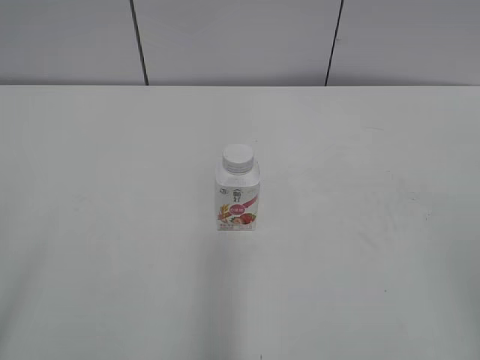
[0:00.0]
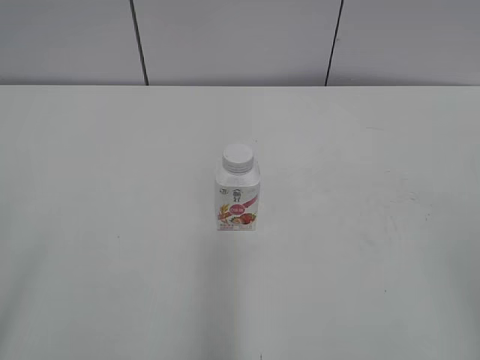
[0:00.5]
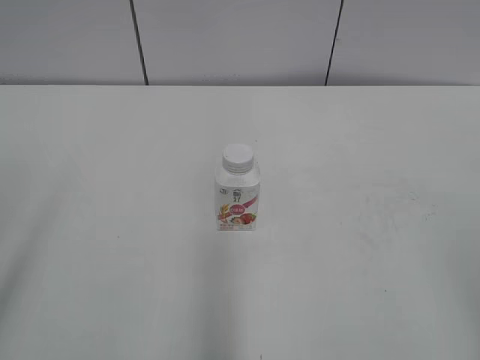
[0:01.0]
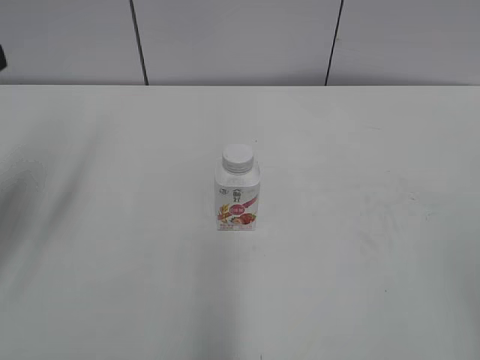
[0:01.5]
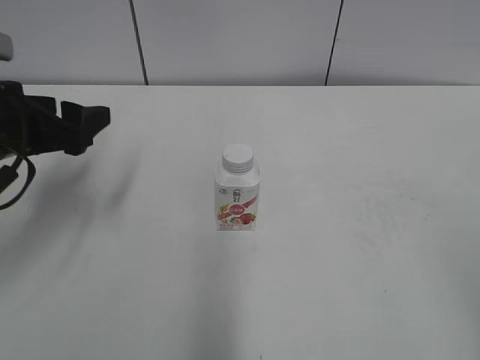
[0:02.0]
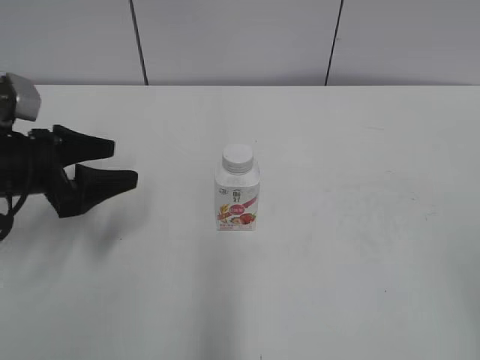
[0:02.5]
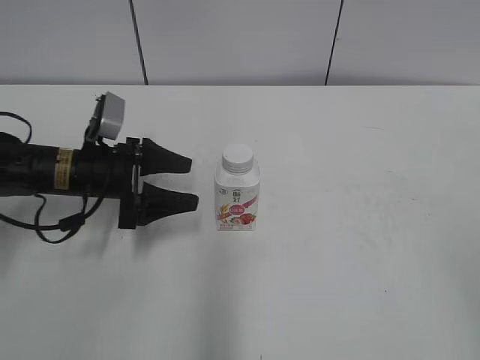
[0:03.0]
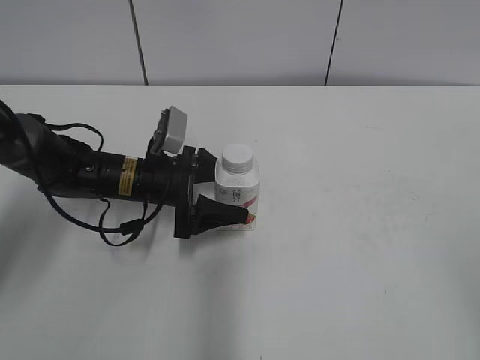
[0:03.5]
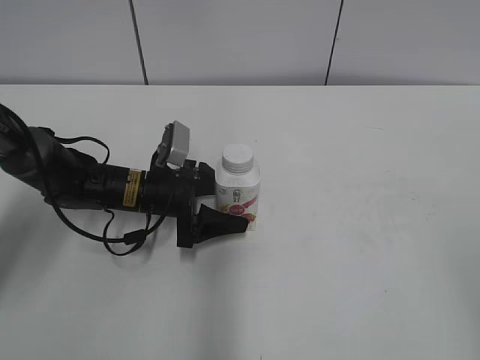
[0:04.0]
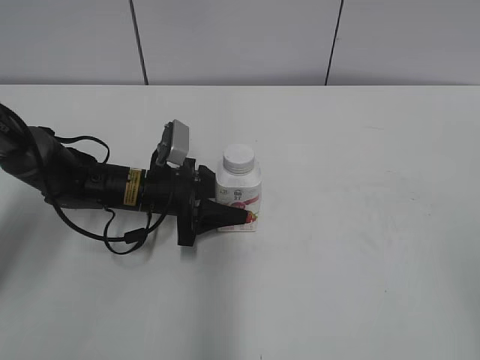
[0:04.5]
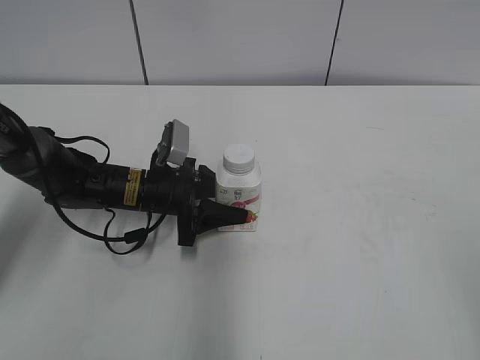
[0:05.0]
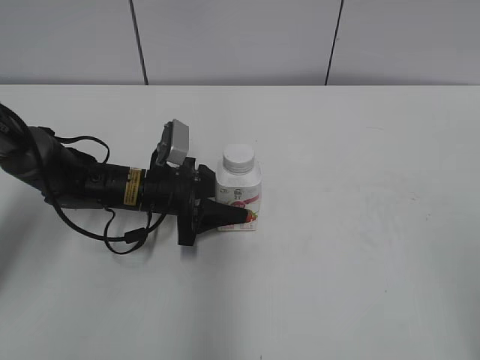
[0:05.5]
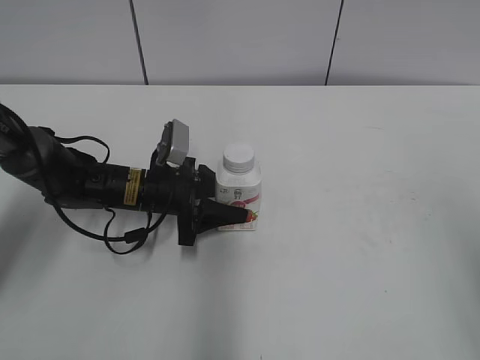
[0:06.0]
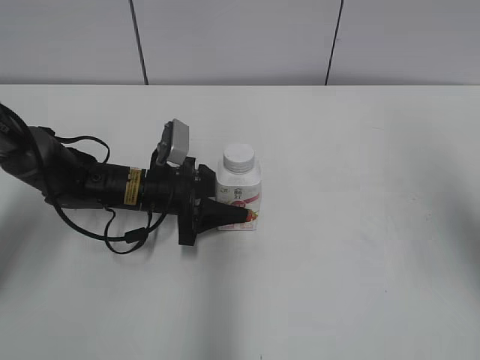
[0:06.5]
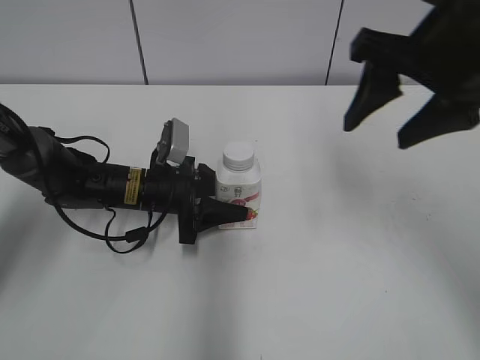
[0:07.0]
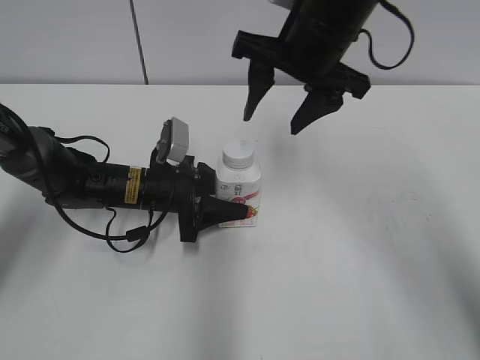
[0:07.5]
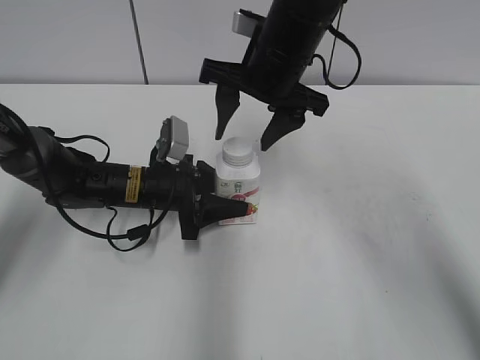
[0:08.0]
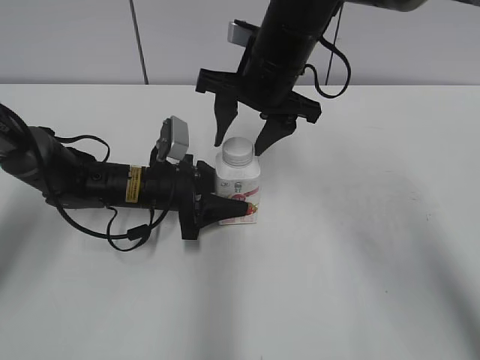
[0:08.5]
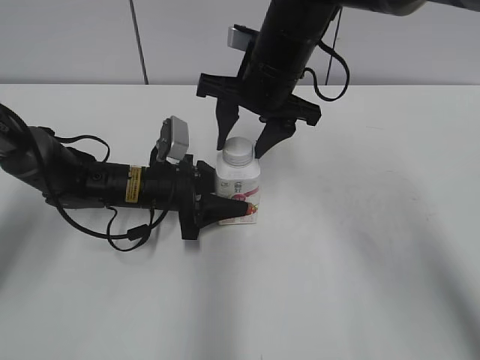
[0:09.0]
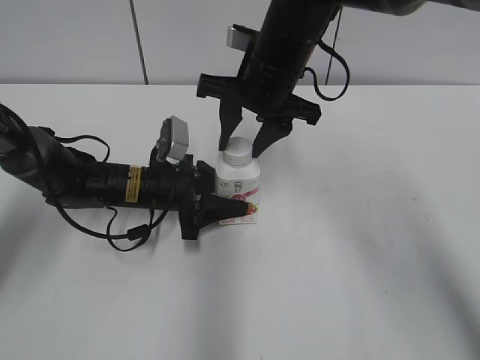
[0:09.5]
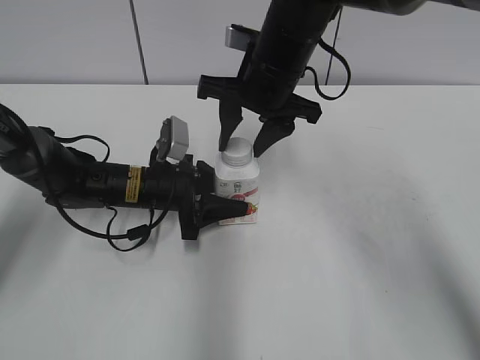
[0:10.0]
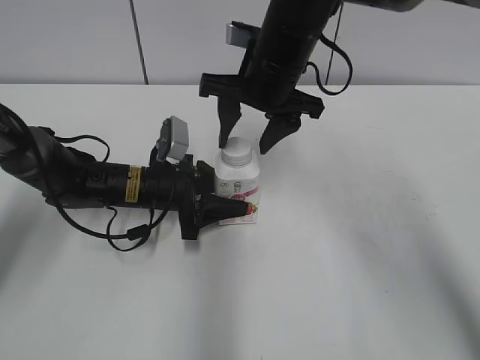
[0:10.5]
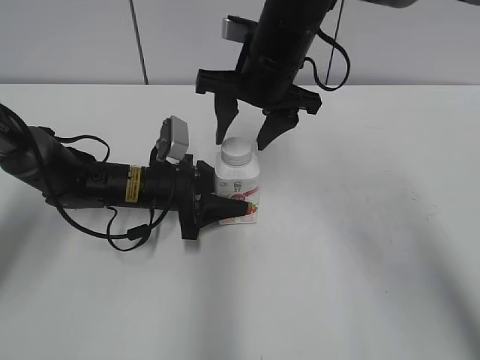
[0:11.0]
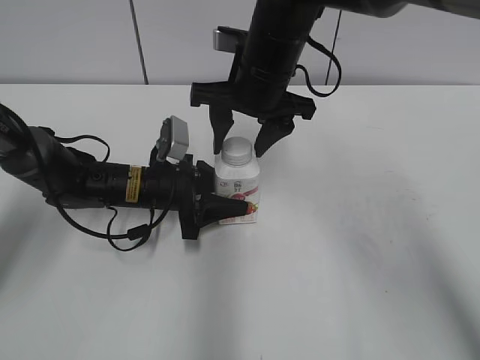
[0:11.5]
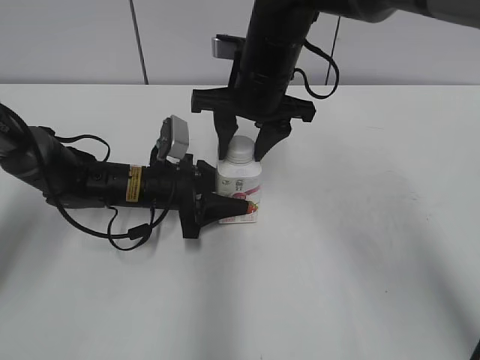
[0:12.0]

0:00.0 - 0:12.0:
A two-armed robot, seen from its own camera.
Step, 0:00.0 - 0:07.0: Grasp the bottle and move it to the center of the table with the left gripper.
0:02.0 - 0:04.0: The left gripper moves downward, to the right and forward, approximately 20 cm.
0:04.0 - 0:06.0: The left gripper closes up, while the right gripper goes about 5 cm forward.
0:06.0 - 0:08.0: The right gripper shifts some 40 cm forward and to the left.
0:08.0 - 0:10.0: The right gripper closes.
0:10.0 - 0:12.0: The right gripper opens, then closes once more.

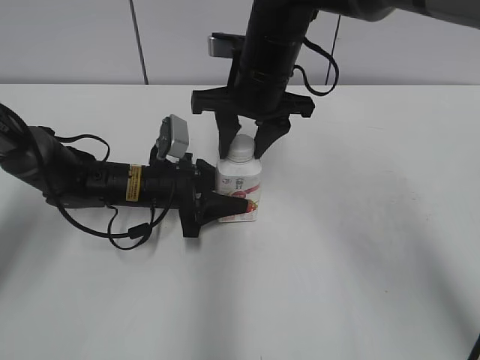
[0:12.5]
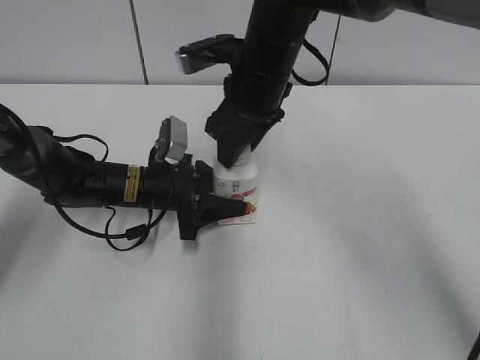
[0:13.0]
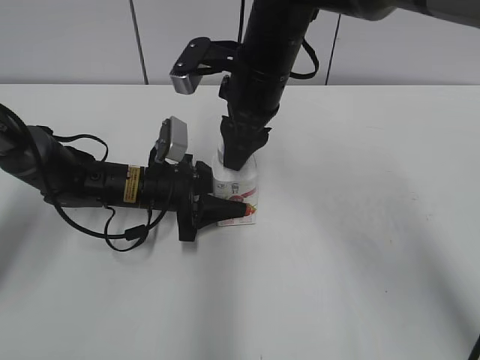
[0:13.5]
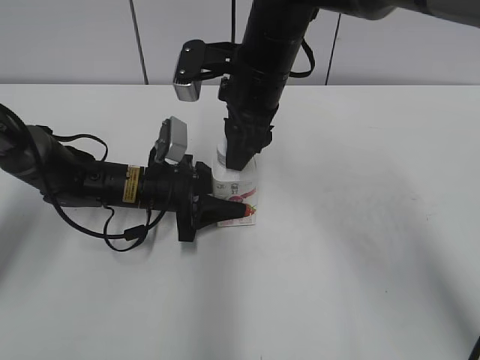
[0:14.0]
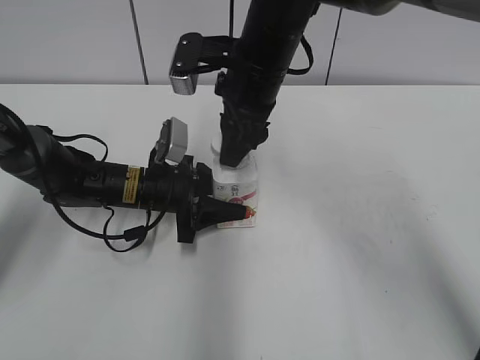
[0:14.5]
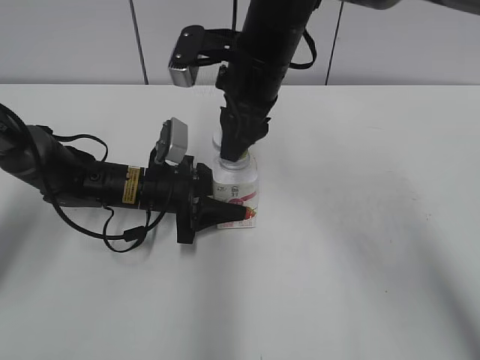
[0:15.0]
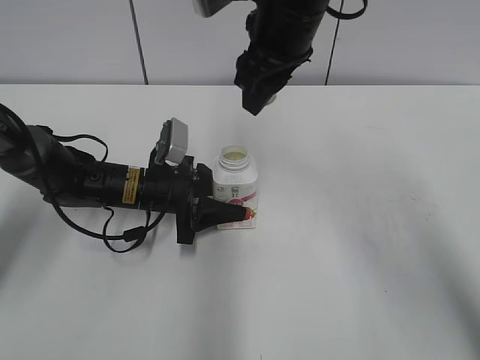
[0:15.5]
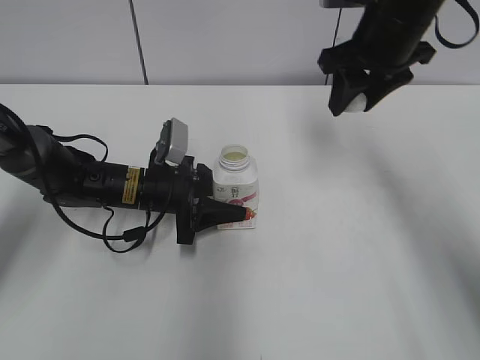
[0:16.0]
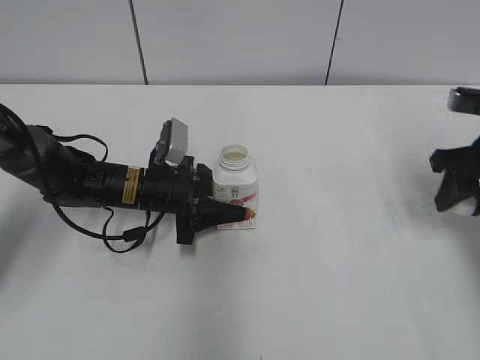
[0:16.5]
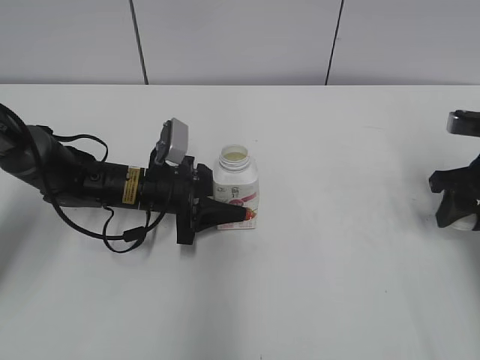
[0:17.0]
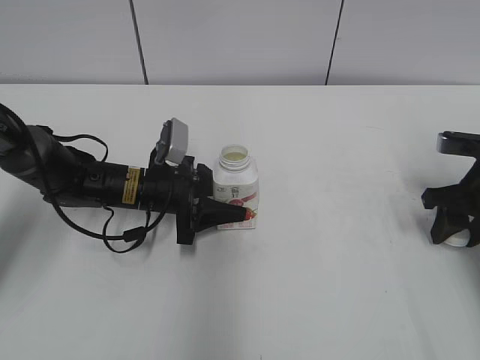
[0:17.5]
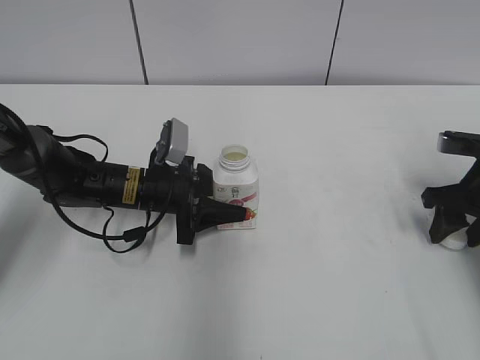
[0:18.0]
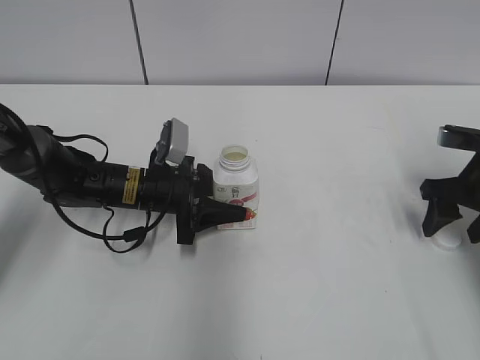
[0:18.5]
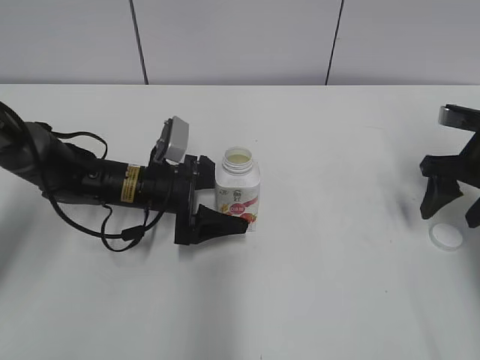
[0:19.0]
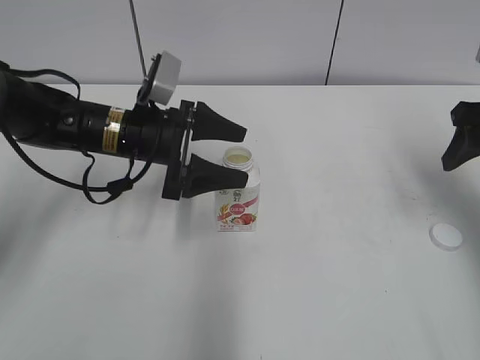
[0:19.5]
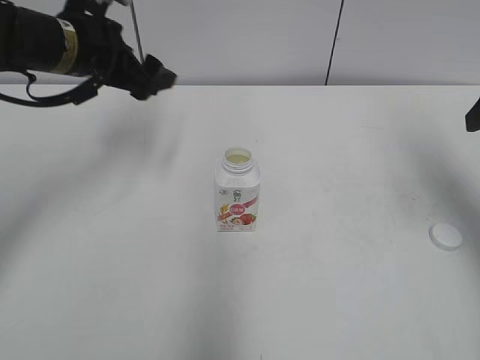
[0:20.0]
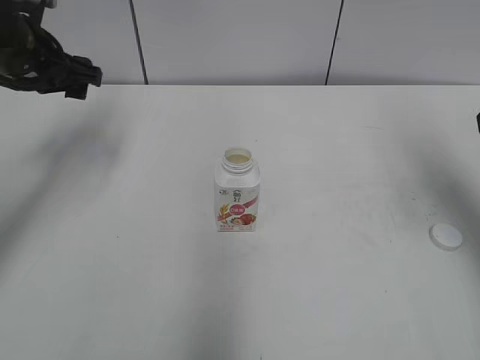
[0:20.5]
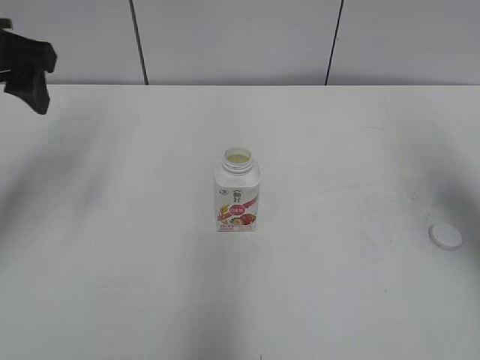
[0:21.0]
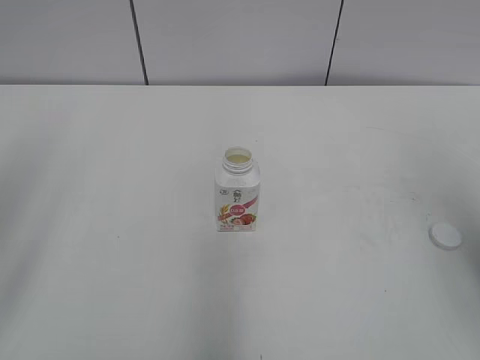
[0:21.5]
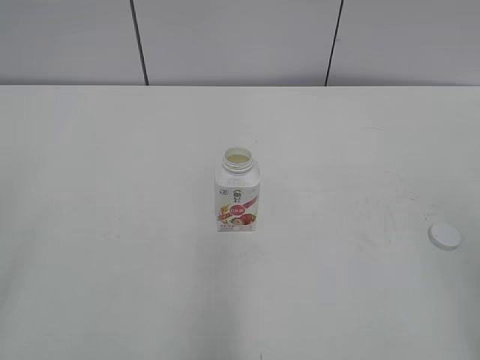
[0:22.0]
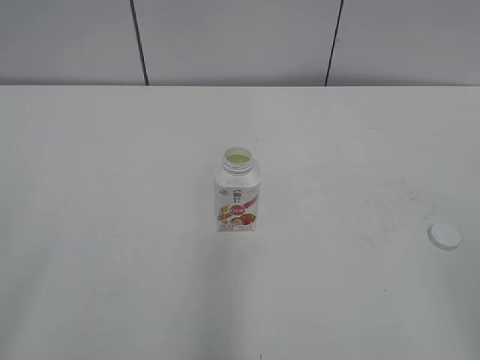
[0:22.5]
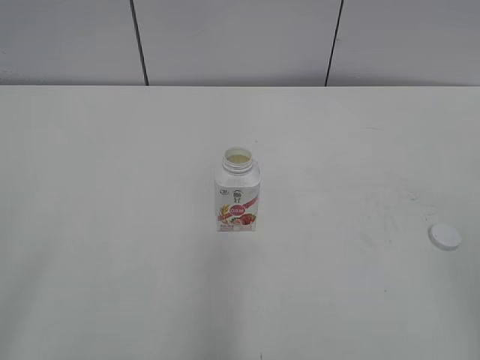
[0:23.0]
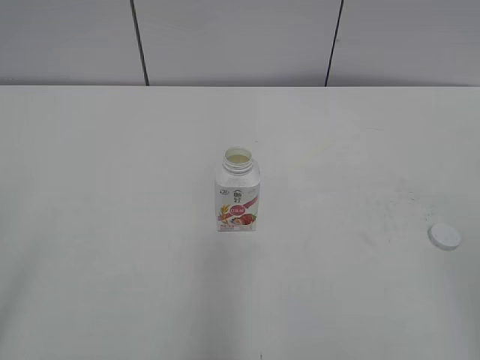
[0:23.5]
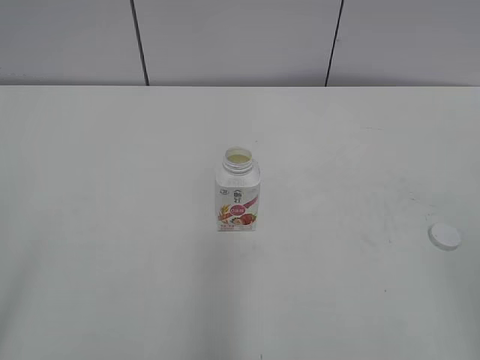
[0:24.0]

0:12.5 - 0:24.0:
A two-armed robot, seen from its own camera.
Step, 0:12.5 - 0:15.0: Unscrew the bottle cap with the right gripper while holding the bottle with the left gripper.
Step, 0:15.5 - 0:18.0: Place the bottle cap on the table with the right gripper.
Step, 0:18.5 - 0:19.0: Place the bottle on the table with the left gripper.
0:14.5 - 0:16.5: The right gripper goes some 25 cm to the right.
0:16.5 - 0:18.5: The right gripper shifts approximately 5 cm downward, and opens its fingers.
0:18.5 - 0:20.0: Both grippers move upward, about 20 cm. The left gripper opens up.
0:20.0 - 0:22.0: The two grippers go about 30 cm backward.

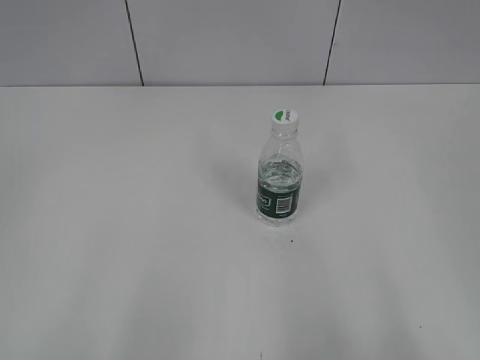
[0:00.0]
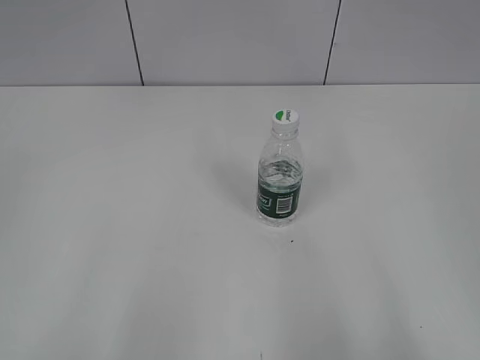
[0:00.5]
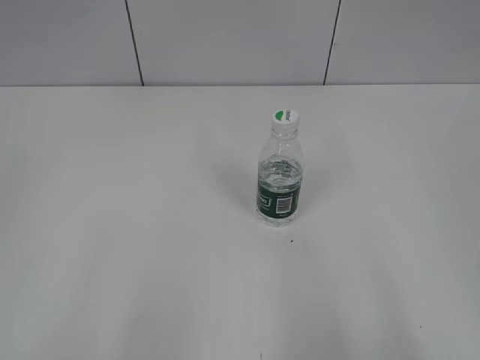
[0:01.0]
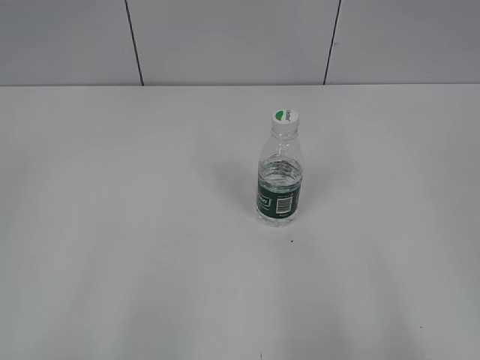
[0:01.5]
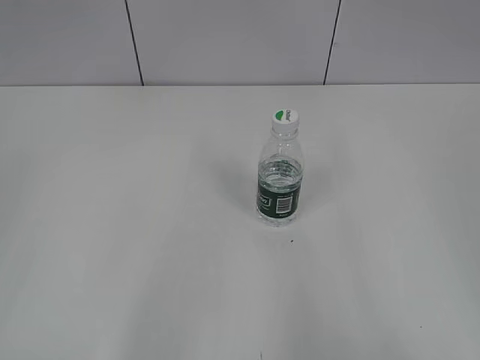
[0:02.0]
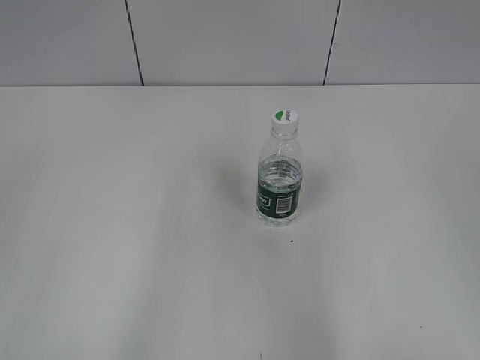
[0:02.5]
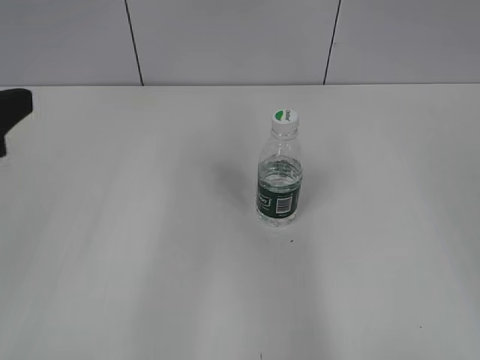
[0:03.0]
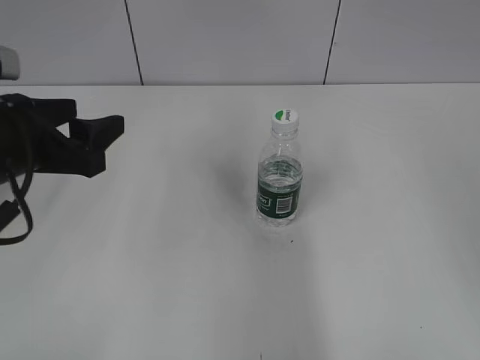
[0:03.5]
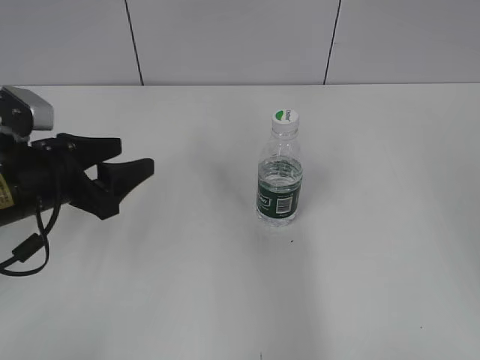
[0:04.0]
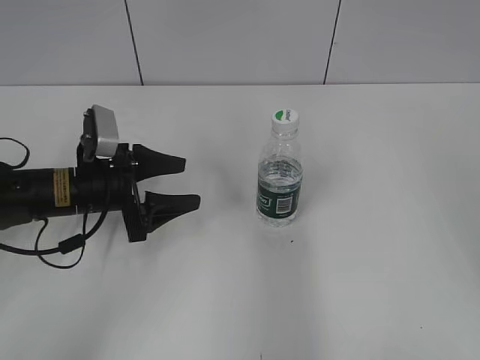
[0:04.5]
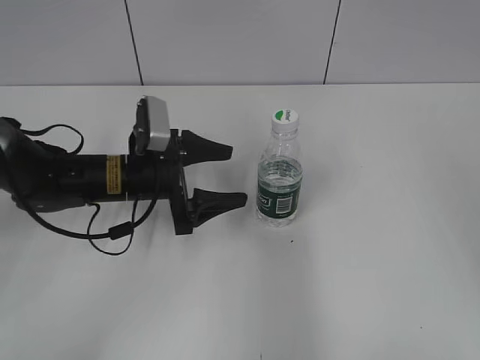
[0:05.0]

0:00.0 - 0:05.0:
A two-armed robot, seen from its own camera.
0:02.5 - 0:05.0: The right gripper goes some 10 cm forward. The left gripper travels forward, downward and to the right by approximately 35 cm, and opens up.
